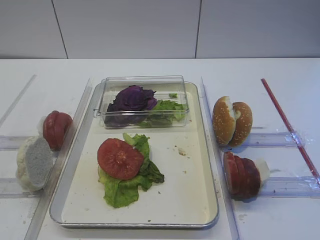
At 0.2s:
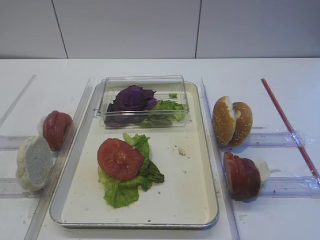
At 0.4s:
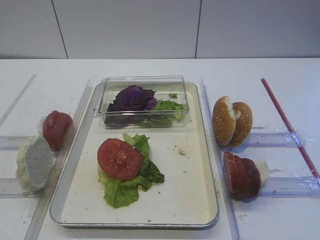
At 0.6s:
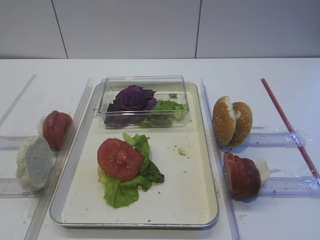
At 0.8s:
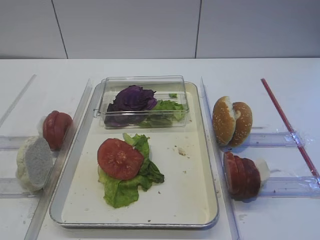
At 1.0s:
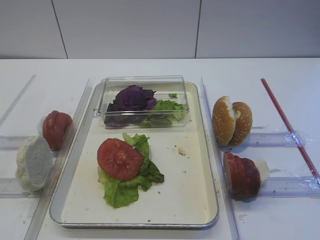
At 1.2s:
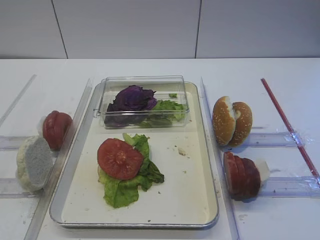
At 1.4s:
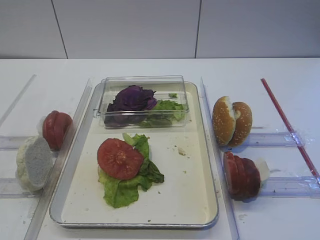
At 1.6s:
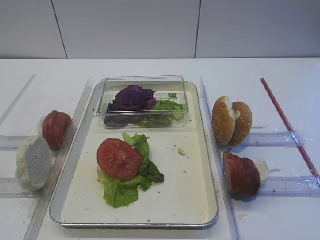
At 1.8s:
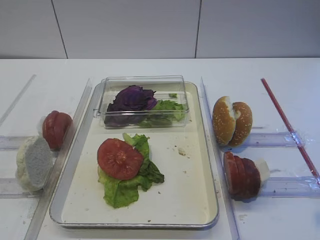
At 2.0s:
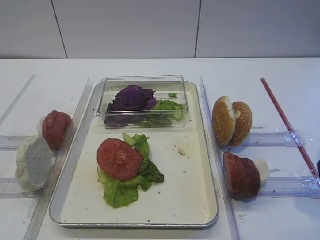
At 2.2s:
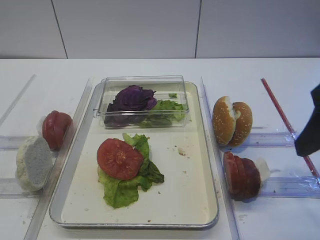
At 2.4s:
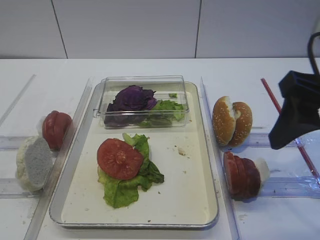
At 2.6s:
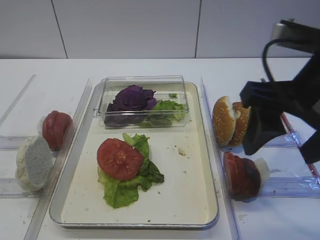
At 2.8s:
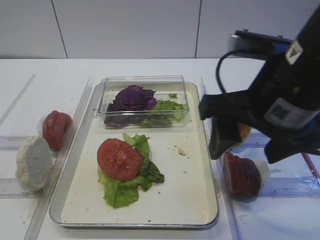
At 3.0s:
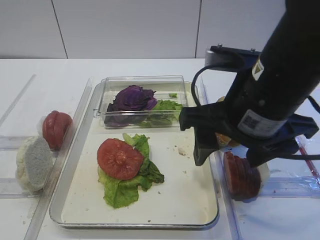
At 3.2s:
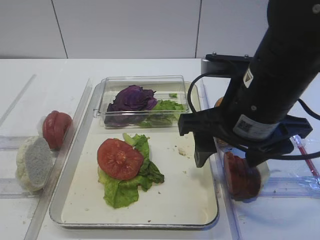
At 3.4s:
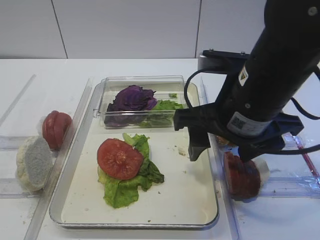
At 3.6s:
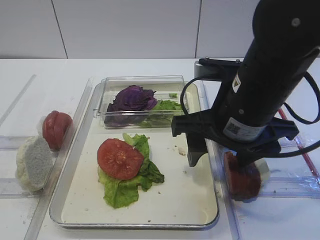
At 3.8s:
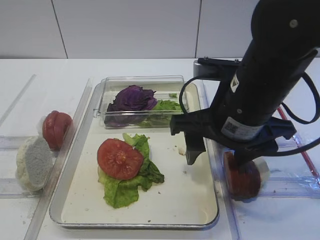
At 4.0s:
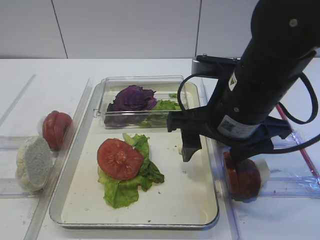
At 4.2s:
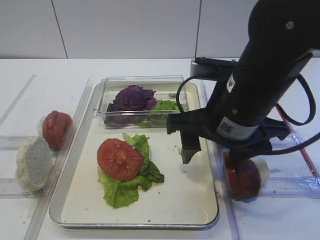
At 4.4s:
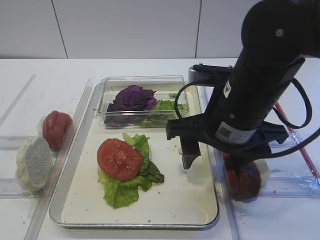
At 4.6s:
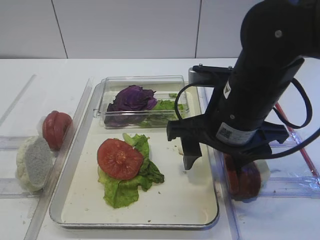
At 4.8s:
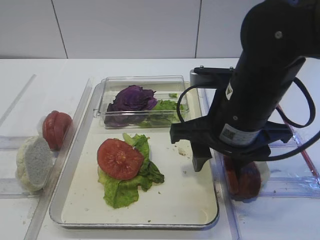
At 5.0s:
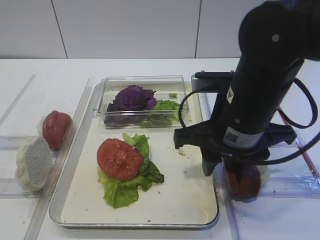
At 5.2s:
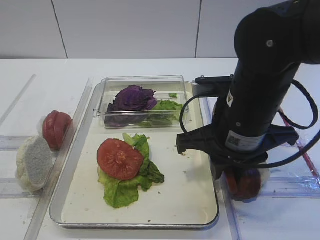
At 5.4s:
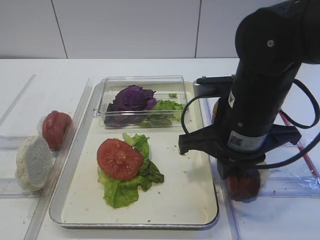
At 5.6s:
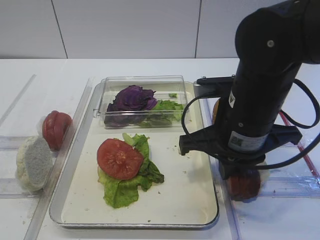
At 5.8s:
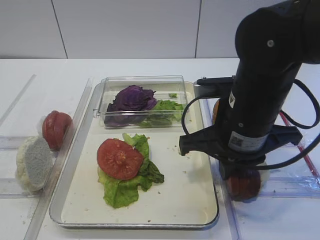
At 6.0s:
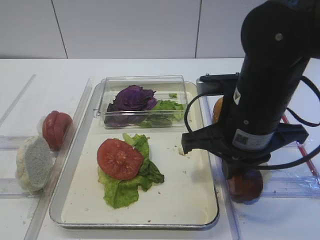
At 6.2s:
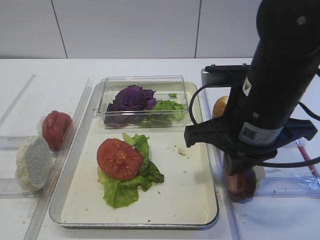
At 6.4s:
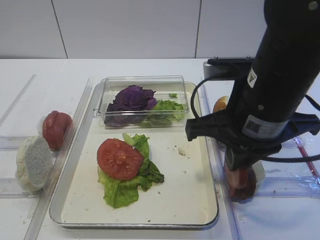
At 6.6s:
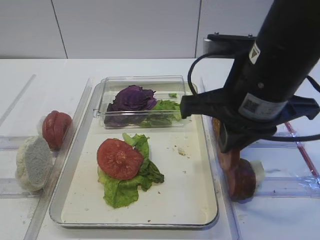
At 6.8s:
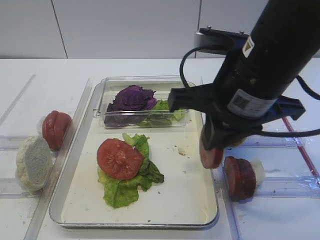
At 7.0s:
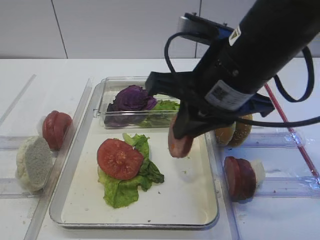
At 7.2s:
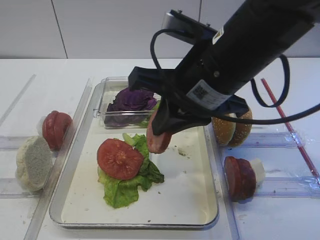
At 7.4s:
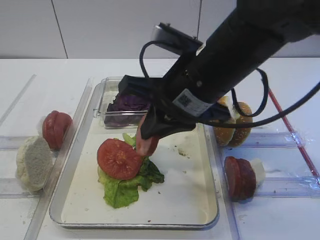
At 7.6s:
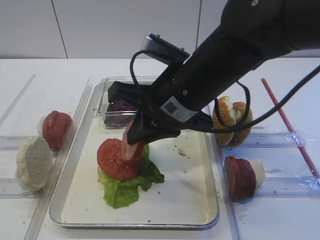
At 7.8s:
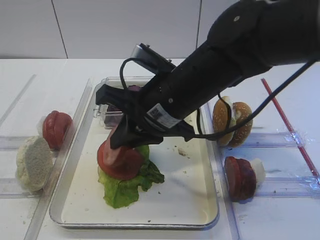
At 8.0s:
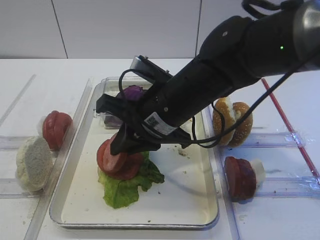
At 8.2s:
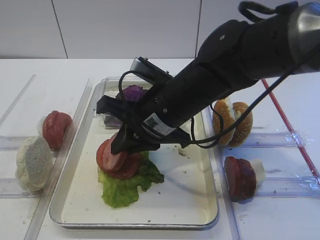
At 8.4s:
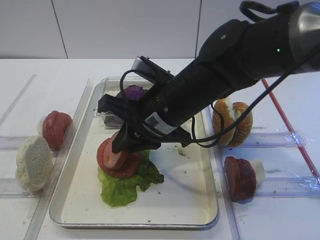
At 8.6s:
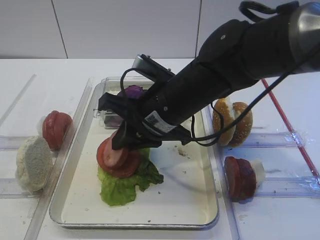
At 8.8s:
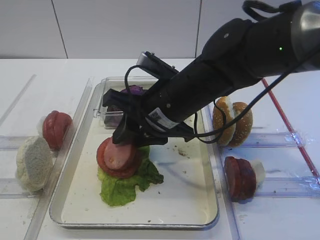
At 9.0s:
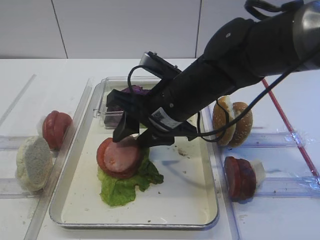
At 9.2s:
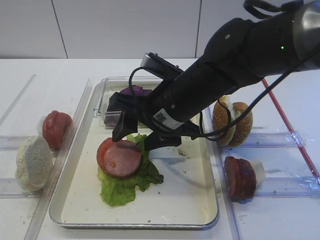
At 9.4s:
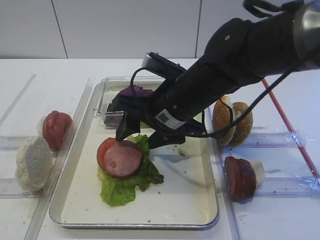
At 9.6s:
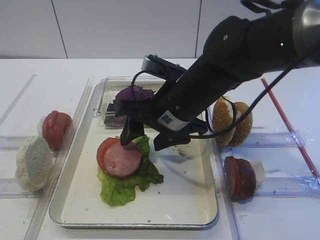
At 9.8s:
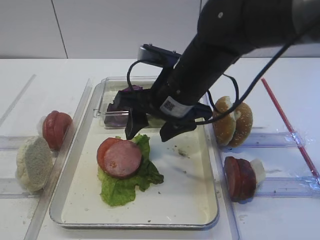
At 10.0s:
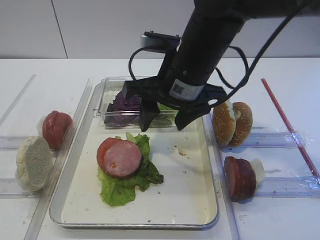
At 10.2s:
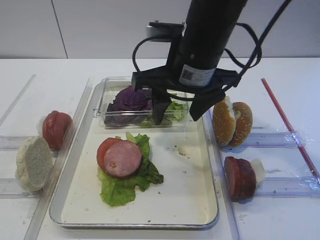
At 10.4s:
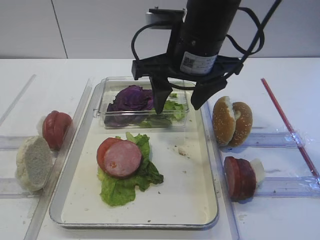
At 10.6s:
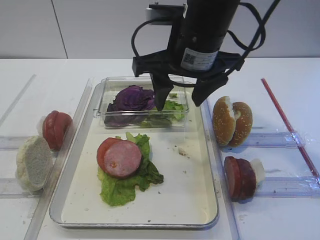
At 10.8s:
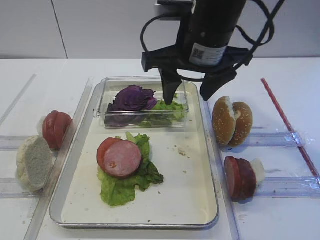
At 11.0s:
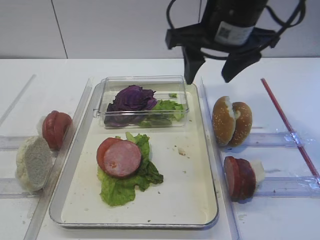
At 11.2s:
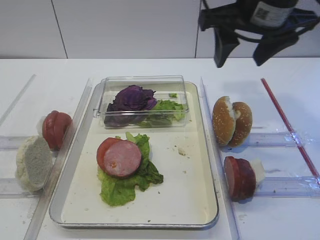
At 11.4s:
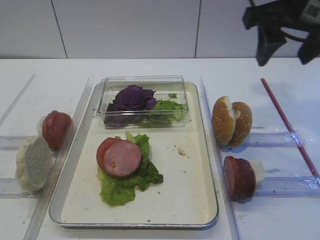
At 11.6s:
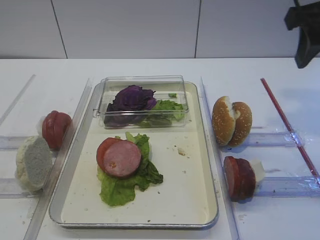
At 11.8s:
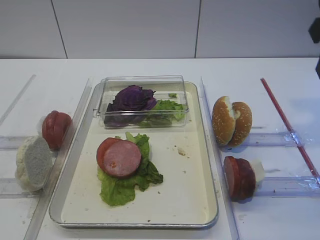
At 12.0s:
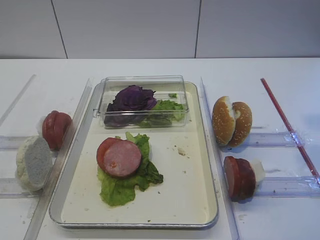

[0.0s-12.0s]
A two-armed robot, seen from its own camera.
Step, 0.0s to 6.4s: Pick up the cutlet with the right gripper.
Step, 6.6s to 9.2s: Place the cutlet on the tomato slice with the right gripper.
1.6s to 3.0s: The right gripper moves to the left and forward, roughly 20 cm.
3.0s to 4.4s: There are only small adjustments of the grippers.
4.4s to 6.0s: The right gripper closes up.
6.0s to 7.6s: The right gripper is displaced to the left by approximately 5 cm.
7.6s to 9.0s: The right gripper ends up roughly 5 cm from where it was, and opens up.
9.0s to 10.4s: The right gripper travels upward by roughly 10 cm.
10.4s to 12.0s: The right gripper goes approximately 20 cm to the right and backward.

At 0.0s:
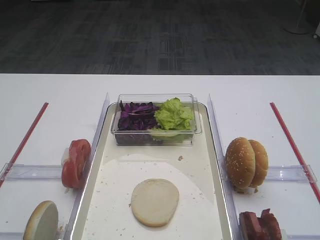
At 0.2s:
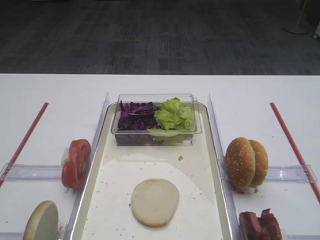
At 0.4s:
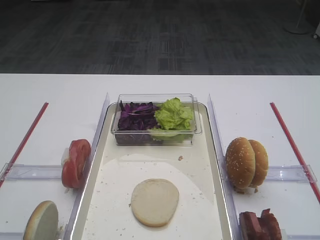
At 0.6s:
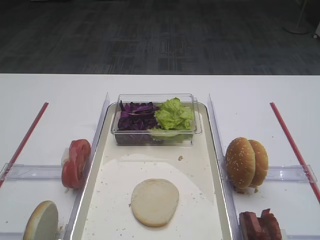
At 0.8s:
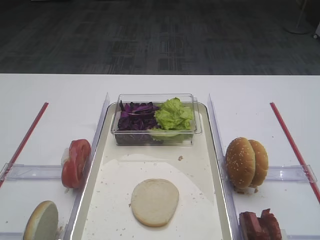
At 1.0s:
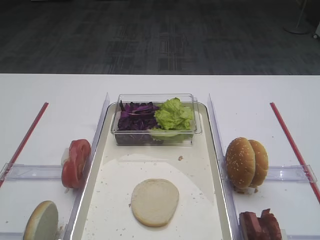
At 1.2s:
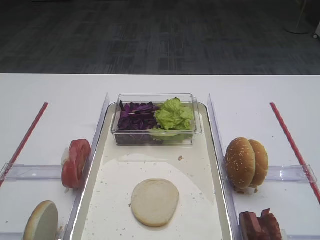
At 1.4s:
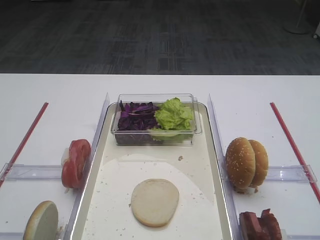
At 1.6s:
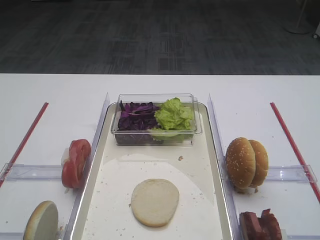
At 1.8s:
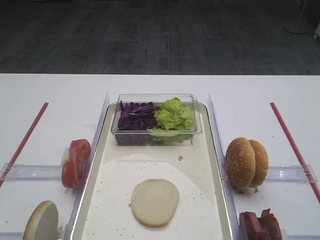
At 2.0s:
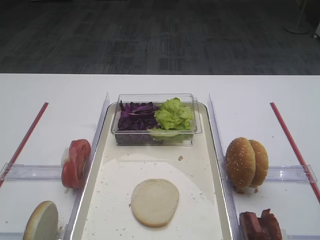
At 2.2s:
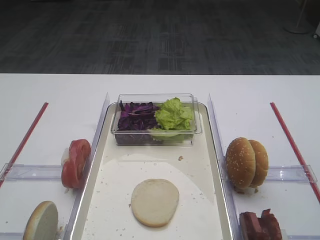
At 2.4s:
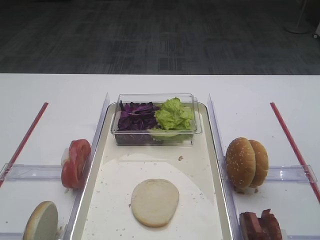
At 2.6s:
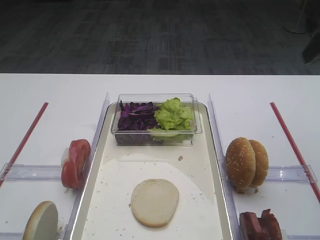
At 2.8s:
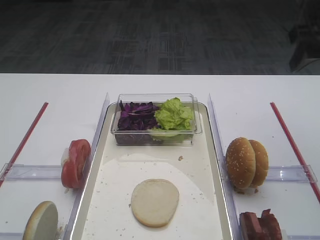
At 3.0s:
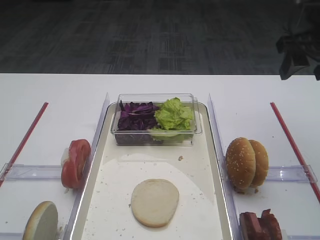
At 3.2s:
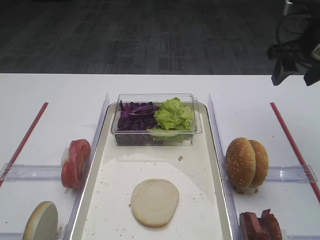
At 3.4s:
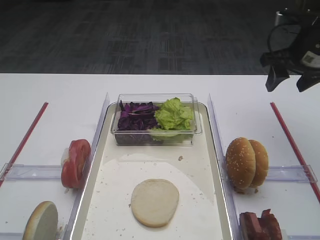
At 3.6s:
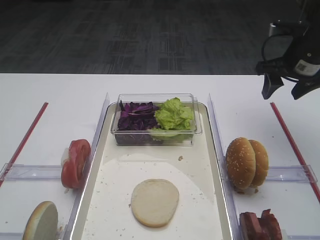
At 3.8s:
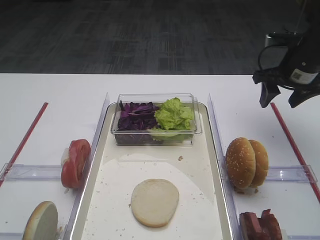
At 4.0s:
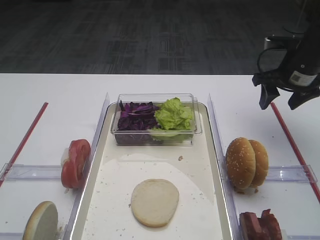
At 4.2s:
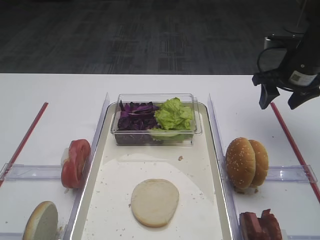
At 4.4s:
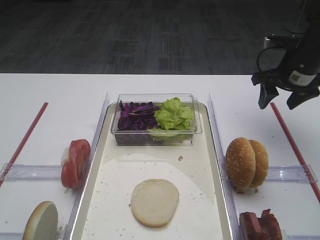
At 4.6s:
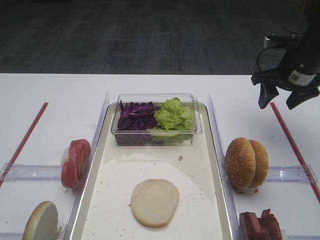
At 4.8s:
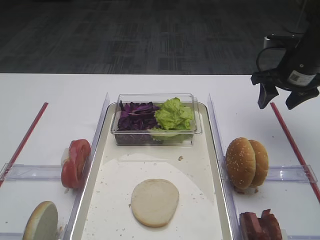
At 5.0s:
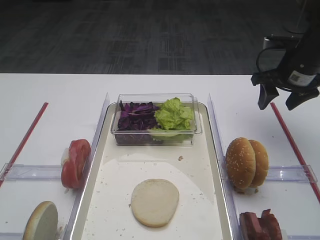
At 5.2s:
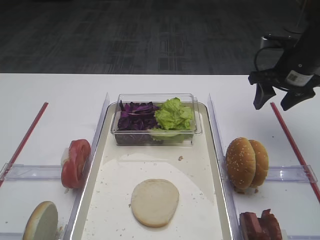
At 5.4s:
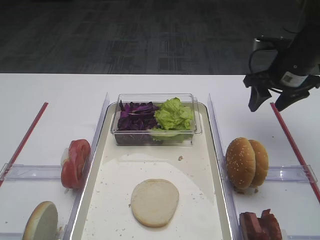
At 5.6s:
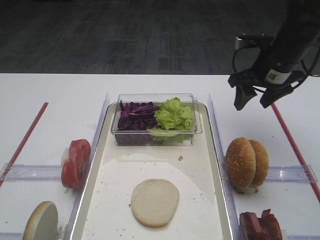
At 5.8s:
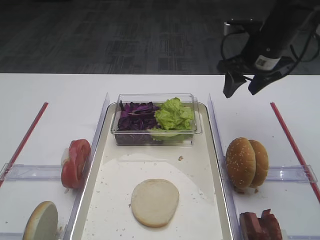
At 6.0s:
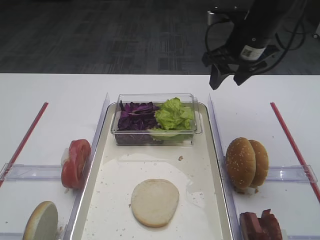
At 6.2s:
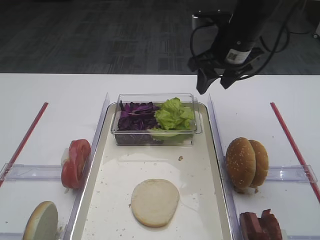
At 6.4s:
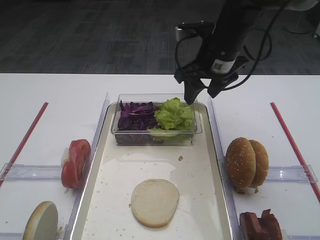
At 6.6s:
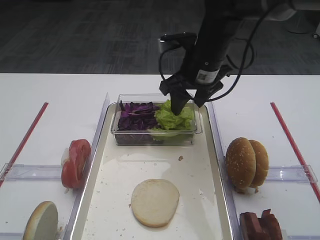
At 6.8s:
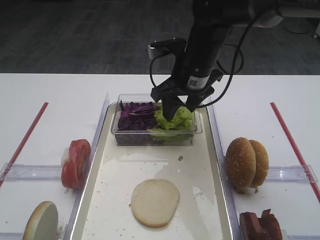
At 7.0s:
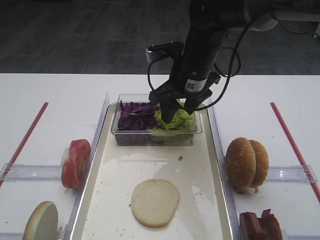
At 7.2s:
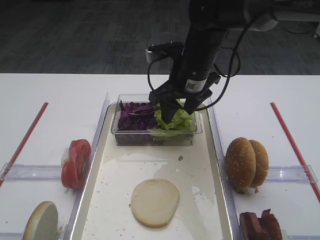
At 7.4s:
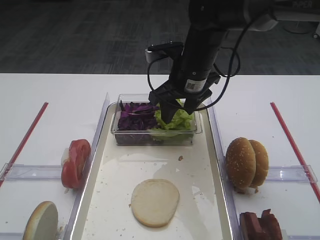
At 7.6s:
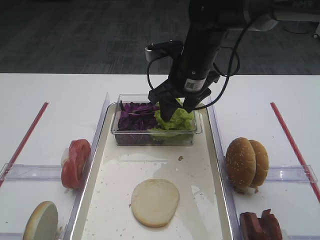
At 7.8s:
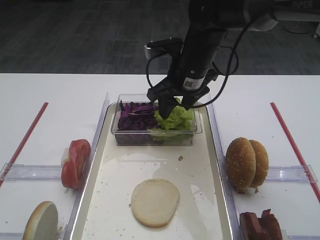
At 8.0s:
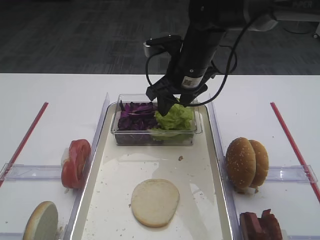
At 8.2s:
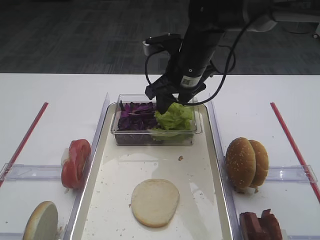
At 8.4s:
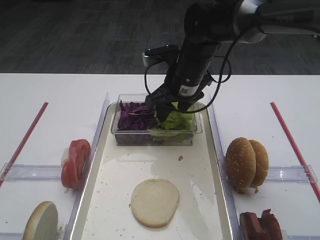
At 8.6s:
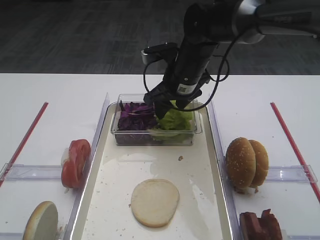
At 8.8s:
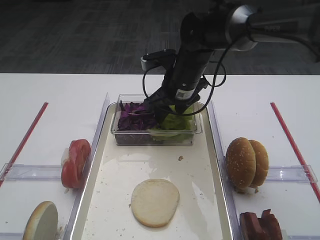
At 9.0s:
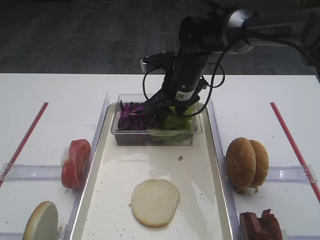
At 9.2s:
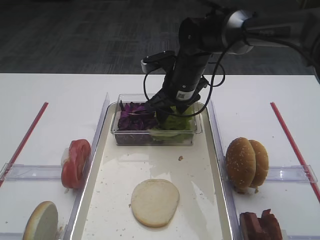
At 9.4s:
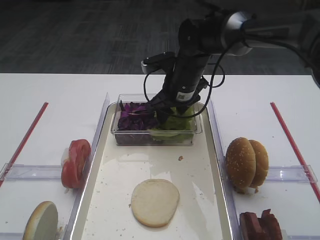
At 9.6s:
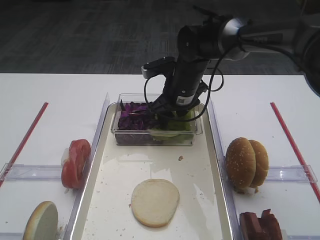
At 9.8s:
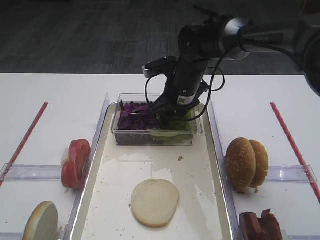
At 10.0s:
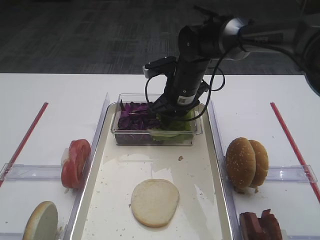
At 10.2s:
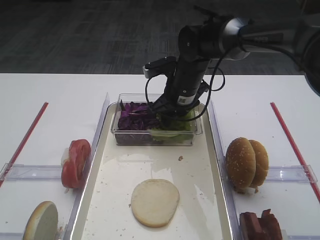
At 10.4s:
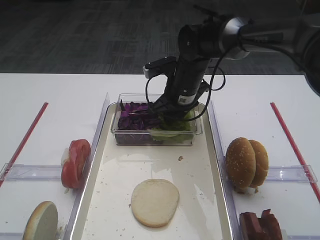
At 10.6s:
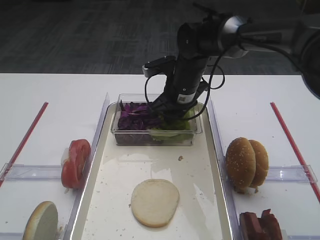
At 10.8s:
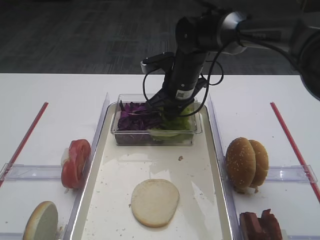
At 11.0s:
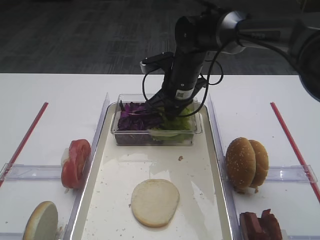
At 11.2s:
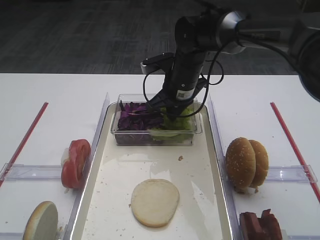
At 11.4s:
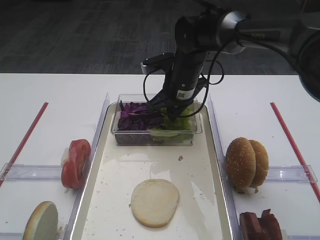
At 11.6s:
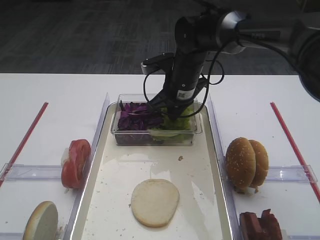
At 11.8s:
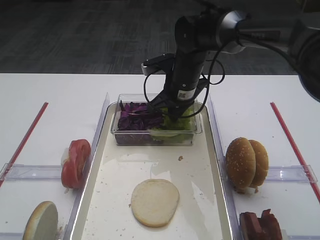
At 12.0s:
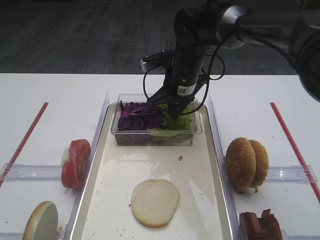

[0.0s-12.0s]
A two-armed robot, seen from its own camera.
1.6s to 3.0s: The right gripper travels forward by some 30 cm.
3.0s to 4.4s: The right gripper travels downward and forward by about 15 cm.
4.4s to 6.0s: The right gripper heads to the left and upward, covering roughly 10 cm.
6.0s to 7.6s: The right gripper travels to the left by approximately 10 cm.
7.6s to 9.0s: The right gripper shifts by about 5 cm.
9.0s to 10.4s: The grippers make only small movements.
10.4s to 12.0s: The right gripper closes its fingers.
